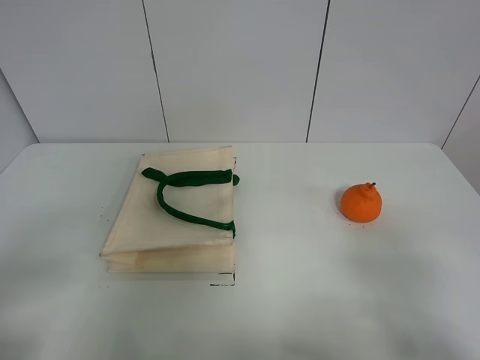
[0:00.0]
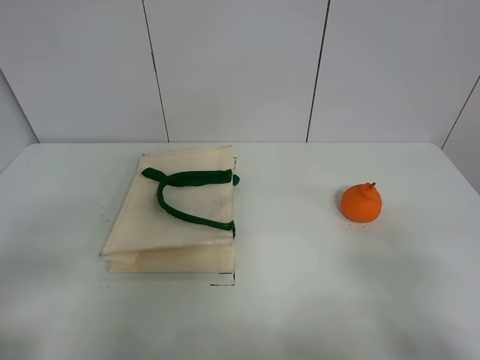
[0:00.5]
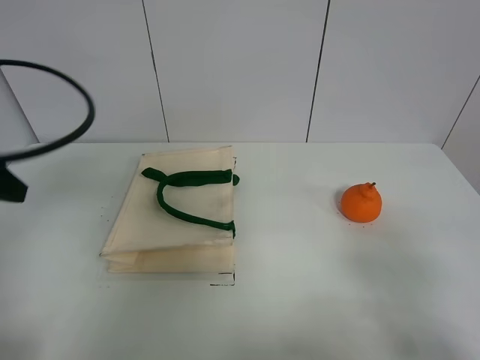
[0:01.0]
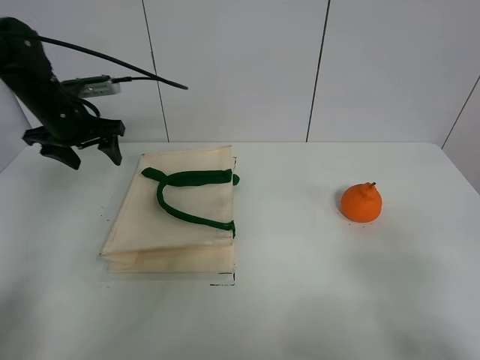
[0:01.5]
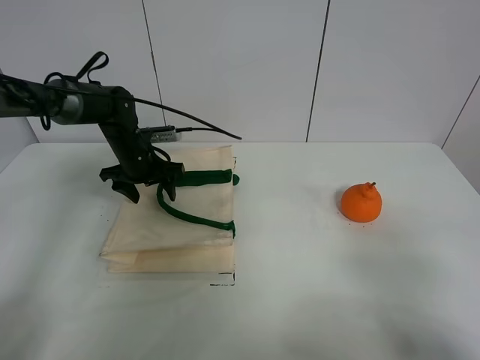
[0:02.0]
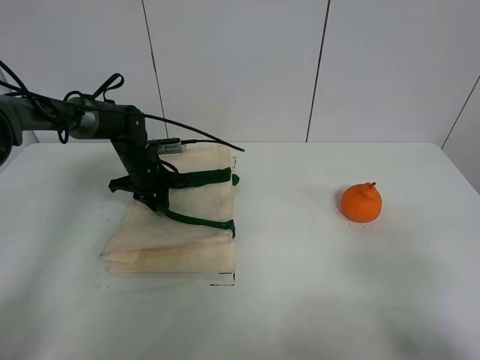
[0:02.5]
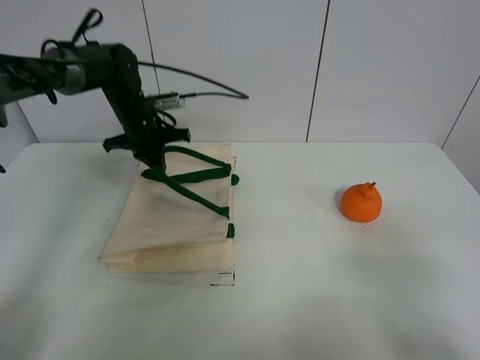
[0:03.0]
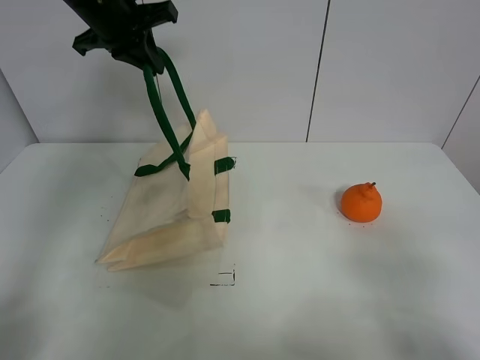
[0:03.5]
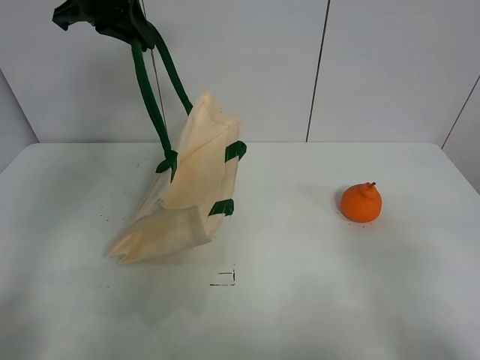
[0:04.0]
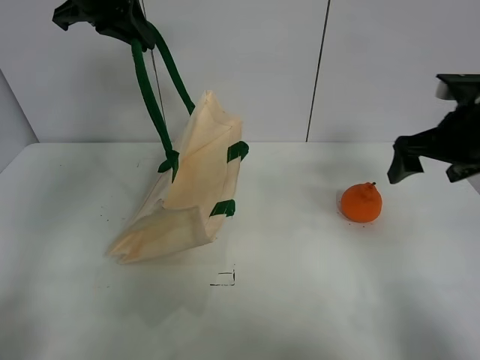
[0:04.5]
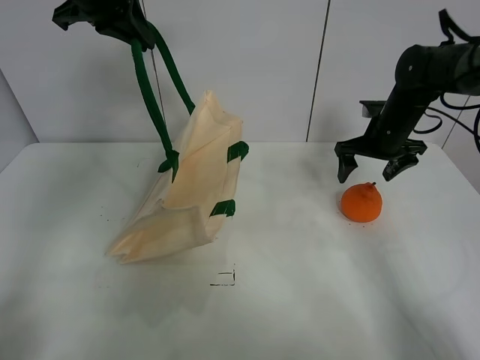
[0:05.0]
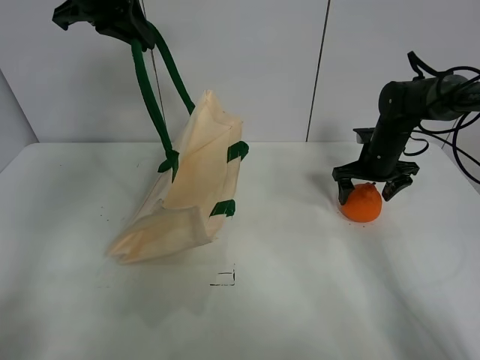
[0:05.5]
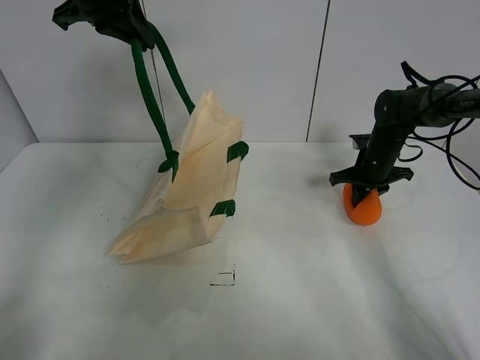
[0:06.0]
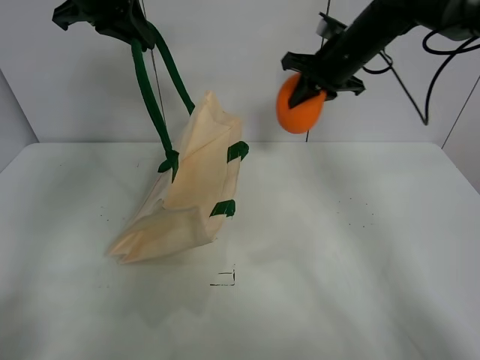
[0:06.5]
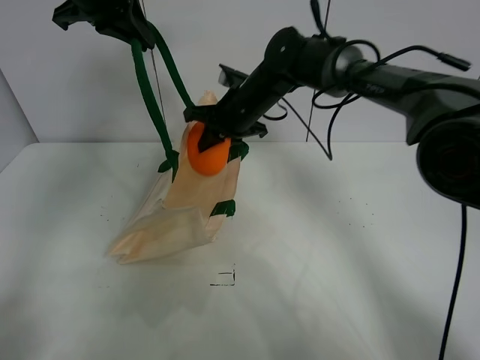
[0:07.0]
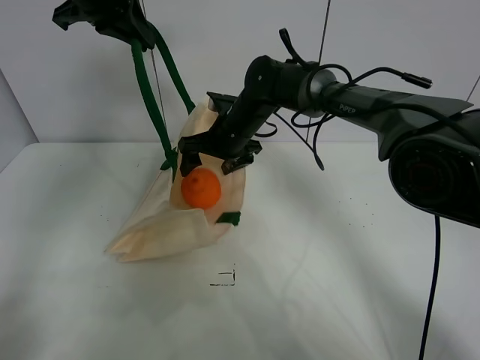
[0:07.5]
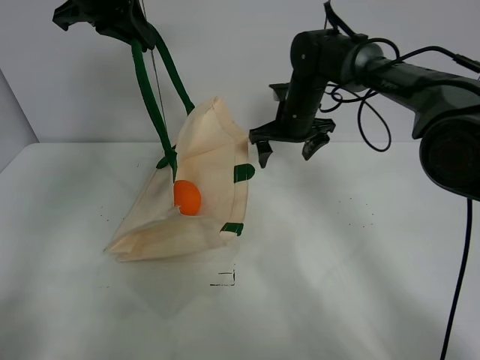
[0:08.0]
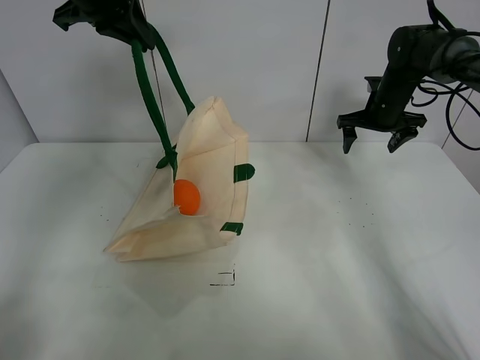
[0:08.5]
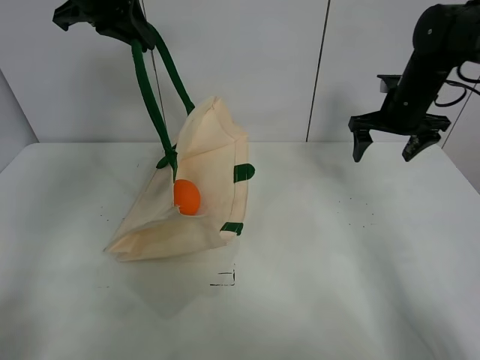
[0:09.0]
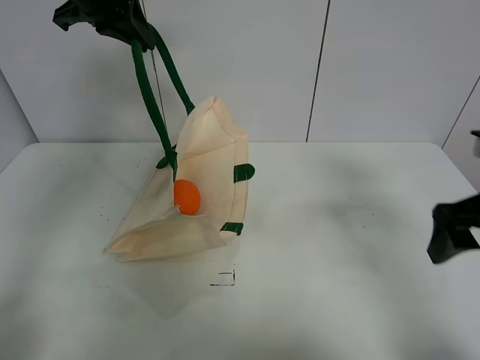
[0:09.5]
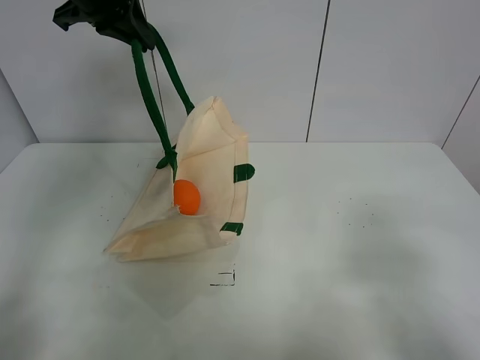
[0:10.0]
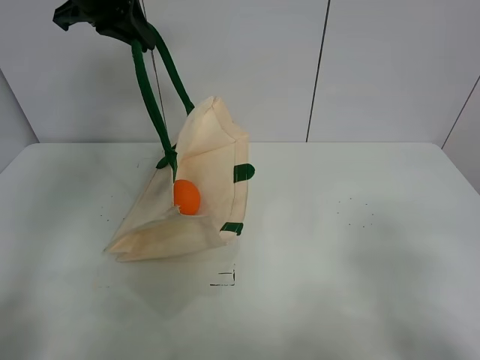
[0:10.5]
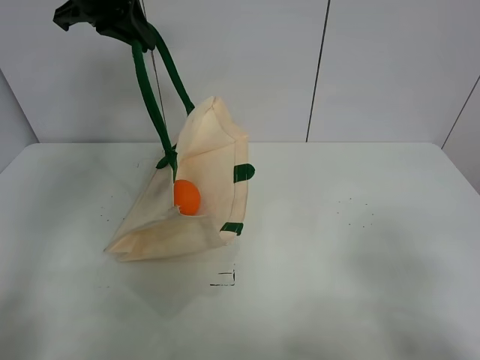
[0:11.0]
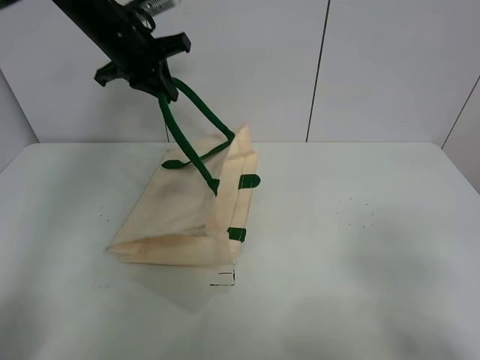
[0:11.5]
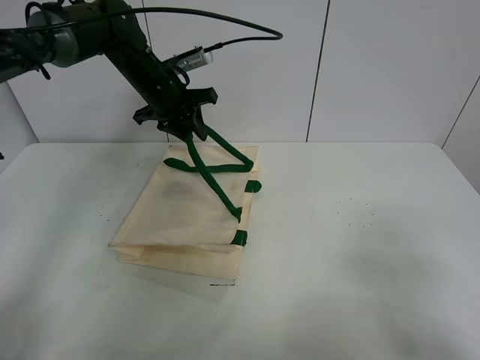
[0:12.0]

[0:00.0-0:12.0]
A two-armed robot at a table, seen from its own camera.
Task of the whole recording: open the white linen bag and put the orange in the bag.
Step, 0:00.0 to 0:03.5: Lift the handbag with left gripper.
Step, 0:04.0 to 0:06.0: Grasp the orange with right gripper.
Step, 0:06.5 to 0:07.5: Place the orange in the handbag with right gripper.
0:00.0 to 0:02.0: The left gripper goes roughly 40 cm forward.
0:02.0 to 0:04.0: The left gripper shifts roughly 30 cm upward, and closes its fingers.
0:04.0 to 0:06.0: The right gripper moves forward, approximately 40 cm, and closes its fingers.
0:06.0 to 0:08.0: The right gripper is displaced to the left and upward by roughly 15 cm, and opens up.
0:08.0 to 0:10.0: The right gripper shifts about 50 cm backward and to the right.
0:10.0 to 0:12.0: The left gripper is displaced downward by roughly 15 cm, and opens its fingers.

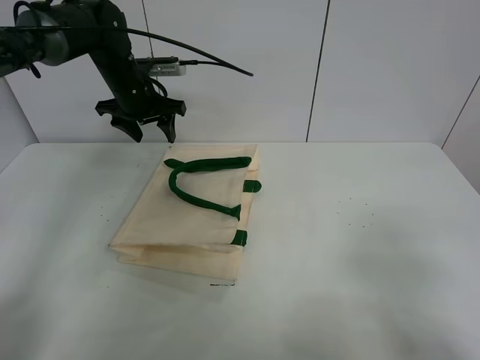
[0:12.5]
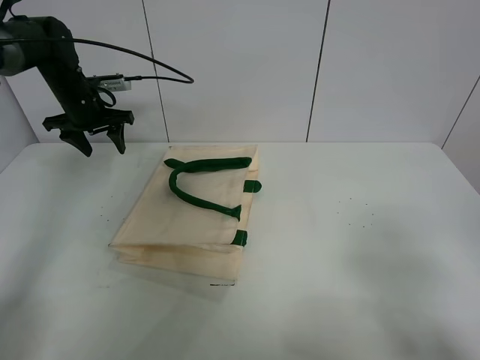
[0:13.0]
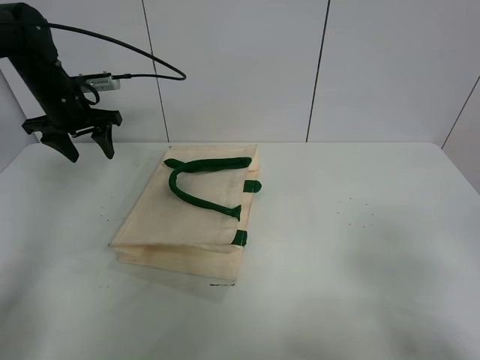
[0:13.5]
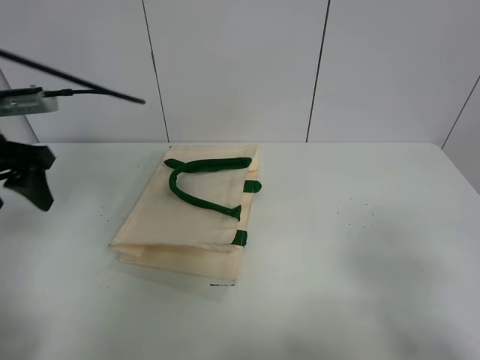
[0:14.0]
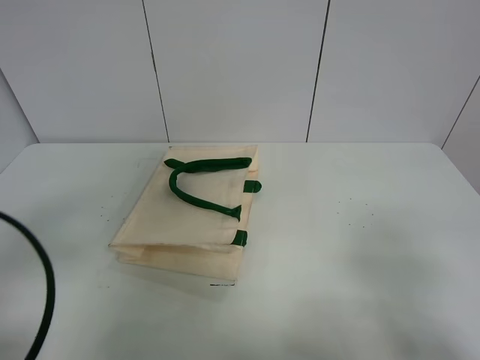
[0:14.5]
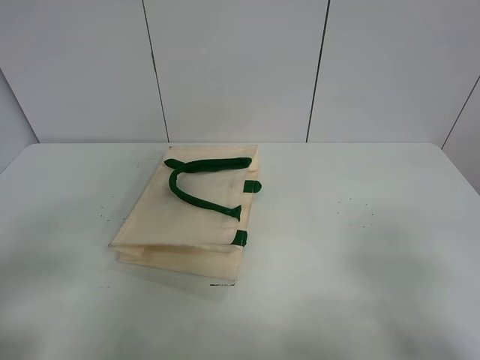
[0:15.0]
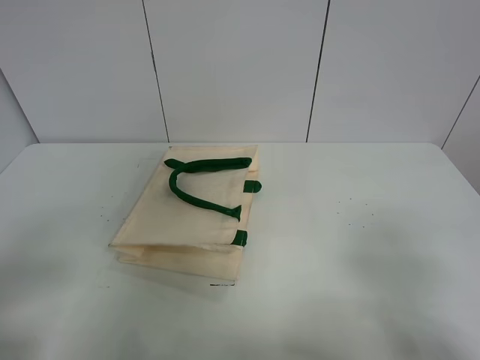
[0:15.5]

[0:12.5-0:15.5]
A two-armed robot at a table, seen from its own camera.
Task of the whole recording: open the white linen bag and put the orange in the bag.
0:12.5 to 0:14.0: The left gripper shifts approximately 25 cm backward and to the left.
0:14.0 to 0:15.5: The left gripper is displaced backward by approximately 25 cm.
